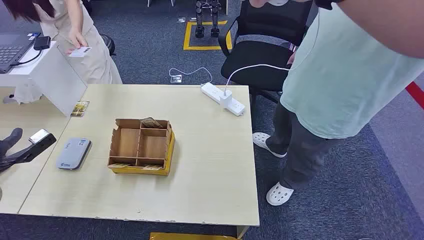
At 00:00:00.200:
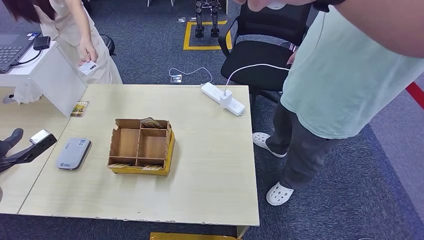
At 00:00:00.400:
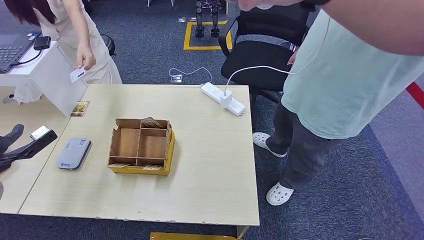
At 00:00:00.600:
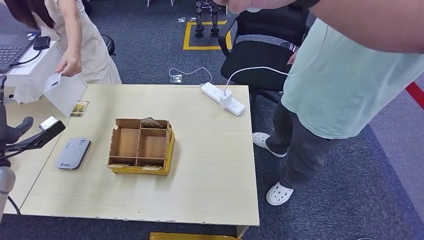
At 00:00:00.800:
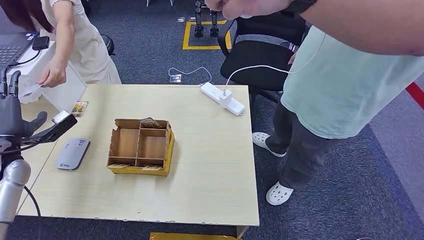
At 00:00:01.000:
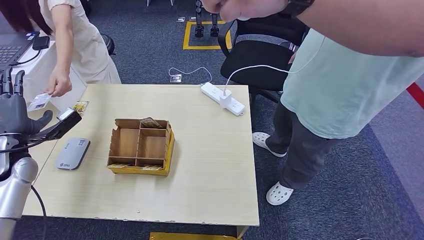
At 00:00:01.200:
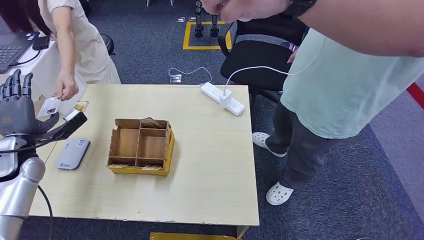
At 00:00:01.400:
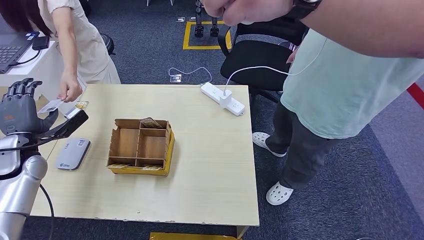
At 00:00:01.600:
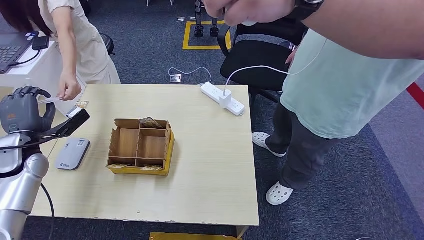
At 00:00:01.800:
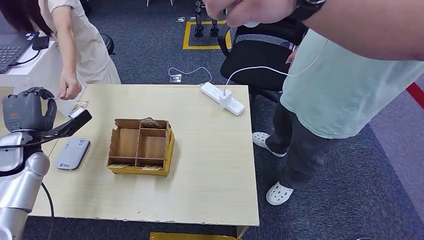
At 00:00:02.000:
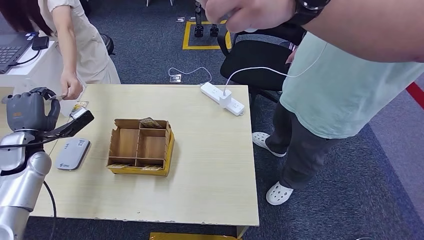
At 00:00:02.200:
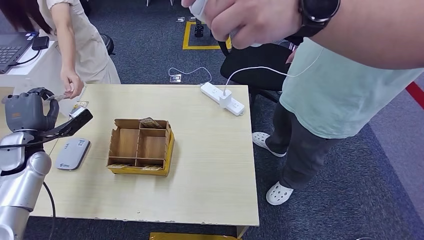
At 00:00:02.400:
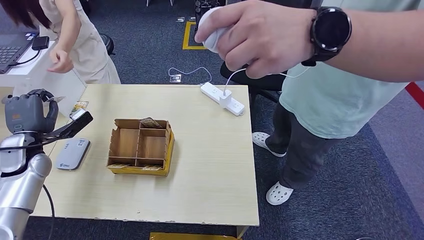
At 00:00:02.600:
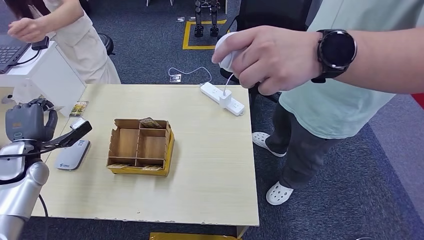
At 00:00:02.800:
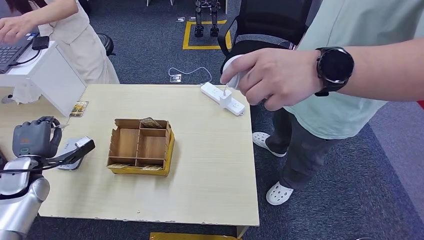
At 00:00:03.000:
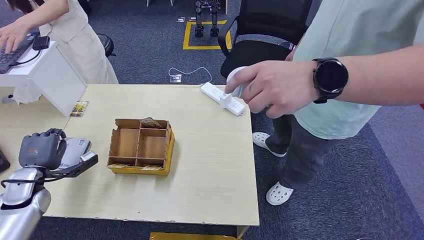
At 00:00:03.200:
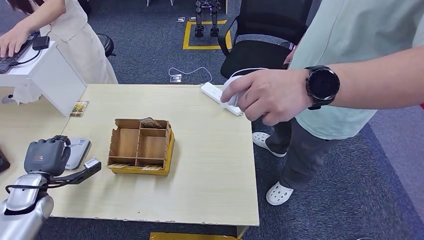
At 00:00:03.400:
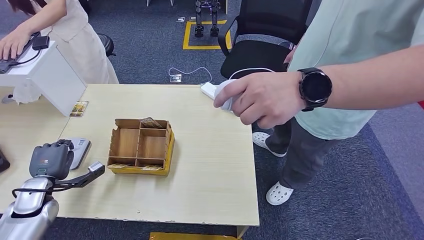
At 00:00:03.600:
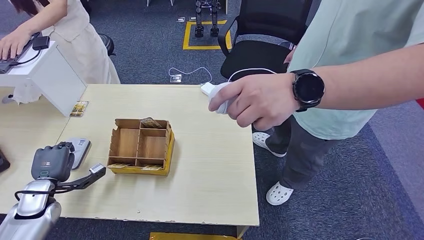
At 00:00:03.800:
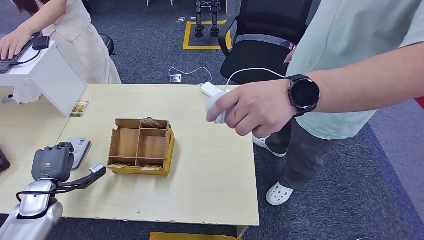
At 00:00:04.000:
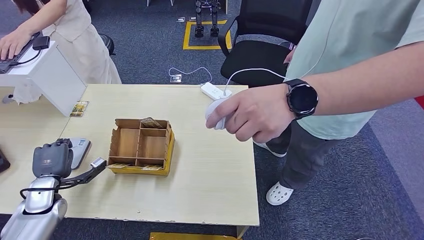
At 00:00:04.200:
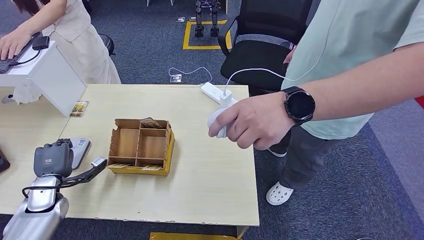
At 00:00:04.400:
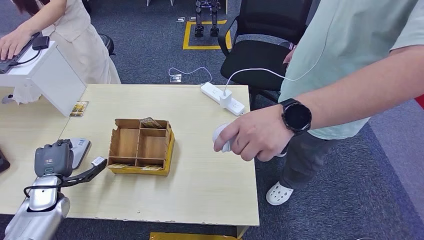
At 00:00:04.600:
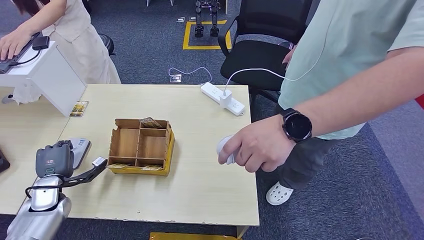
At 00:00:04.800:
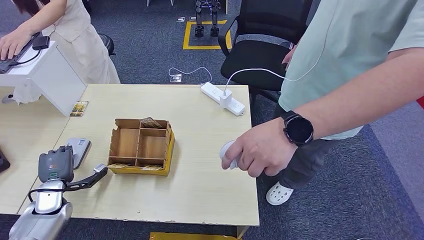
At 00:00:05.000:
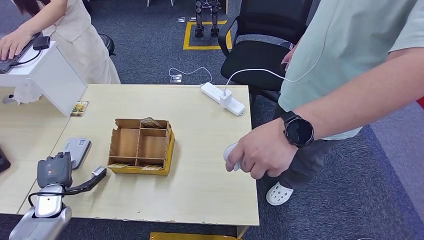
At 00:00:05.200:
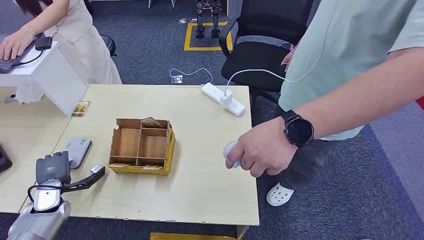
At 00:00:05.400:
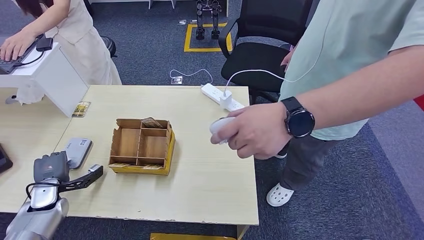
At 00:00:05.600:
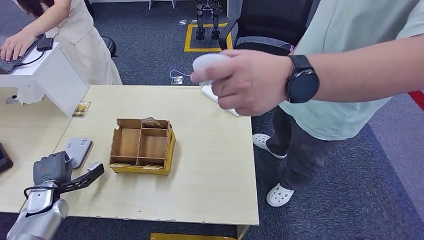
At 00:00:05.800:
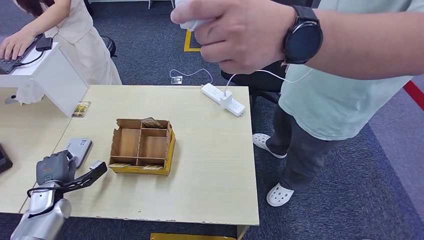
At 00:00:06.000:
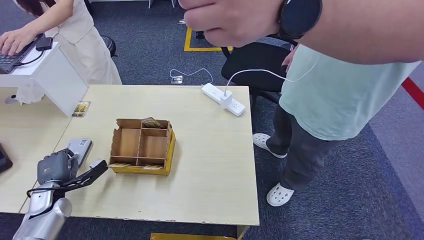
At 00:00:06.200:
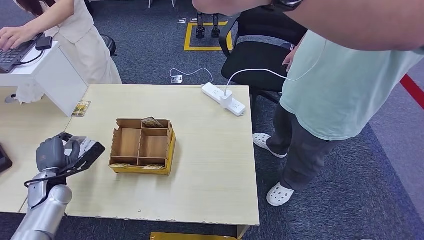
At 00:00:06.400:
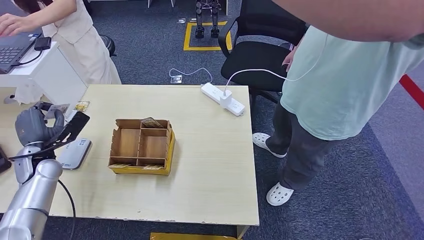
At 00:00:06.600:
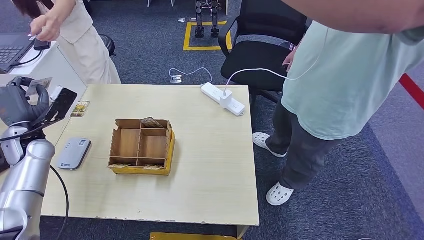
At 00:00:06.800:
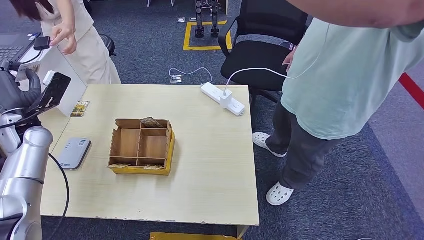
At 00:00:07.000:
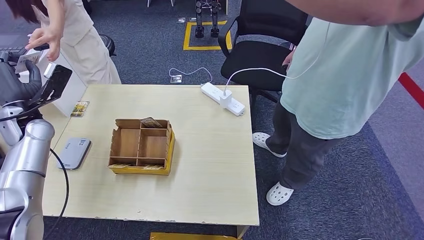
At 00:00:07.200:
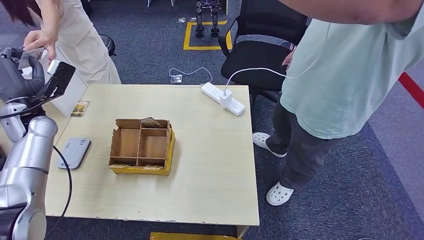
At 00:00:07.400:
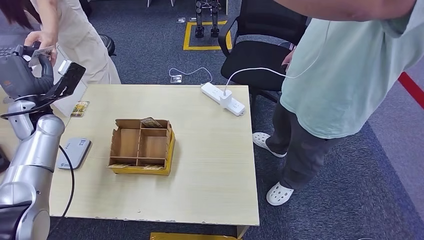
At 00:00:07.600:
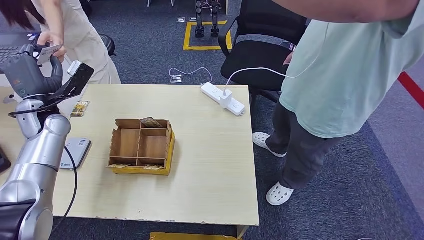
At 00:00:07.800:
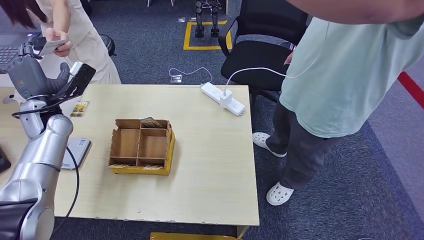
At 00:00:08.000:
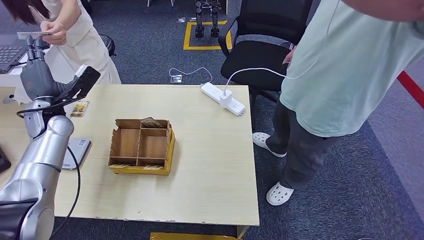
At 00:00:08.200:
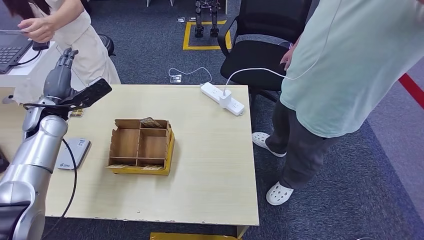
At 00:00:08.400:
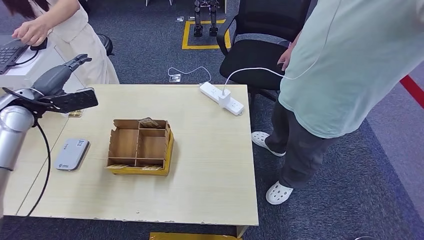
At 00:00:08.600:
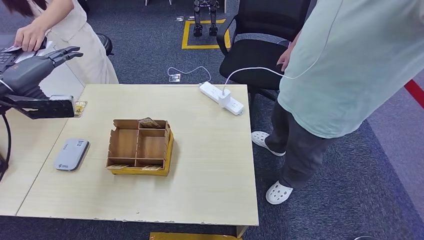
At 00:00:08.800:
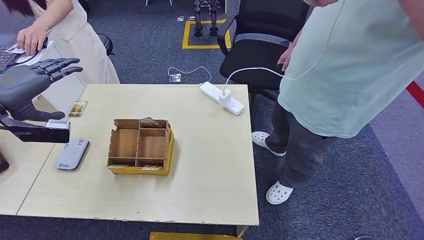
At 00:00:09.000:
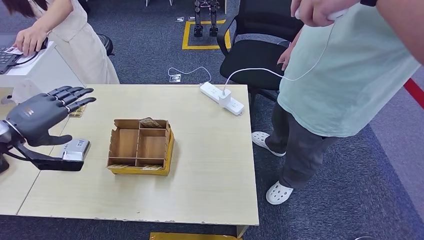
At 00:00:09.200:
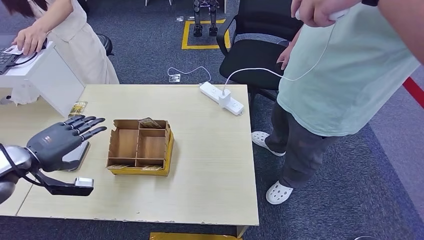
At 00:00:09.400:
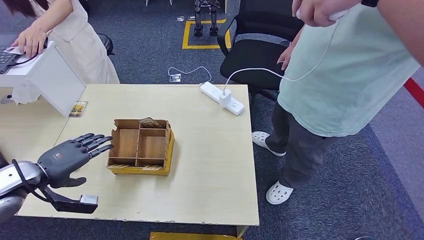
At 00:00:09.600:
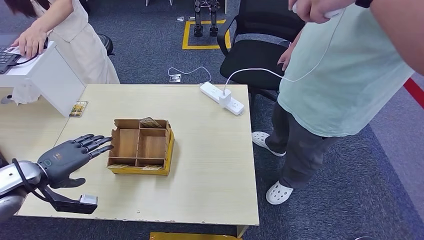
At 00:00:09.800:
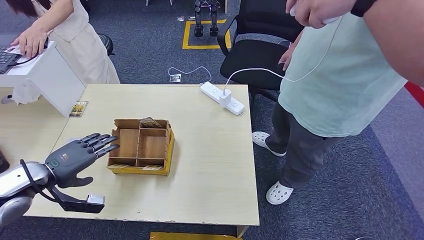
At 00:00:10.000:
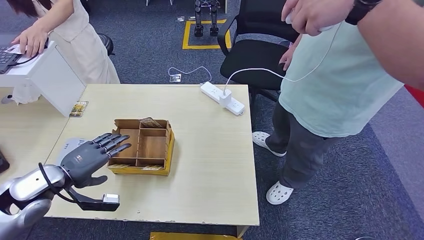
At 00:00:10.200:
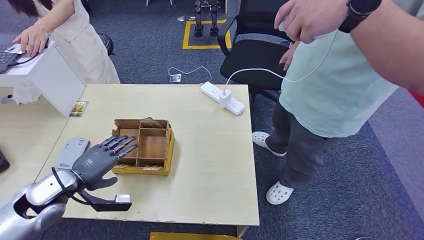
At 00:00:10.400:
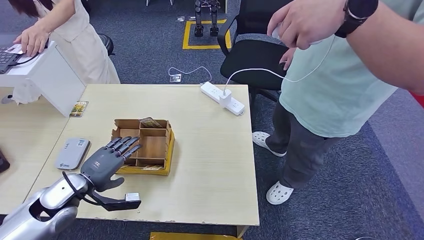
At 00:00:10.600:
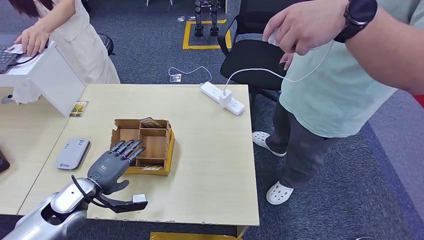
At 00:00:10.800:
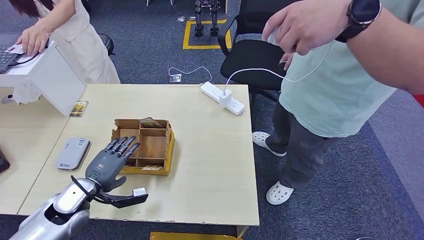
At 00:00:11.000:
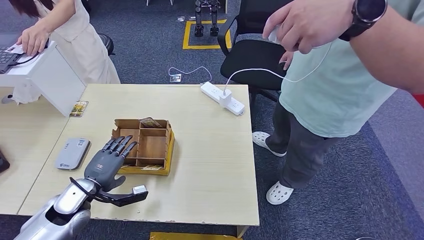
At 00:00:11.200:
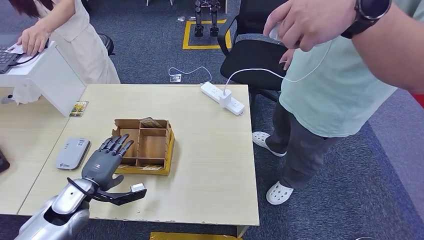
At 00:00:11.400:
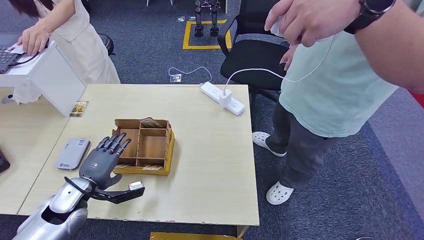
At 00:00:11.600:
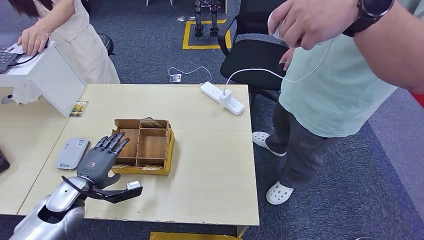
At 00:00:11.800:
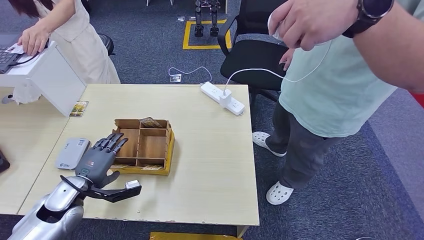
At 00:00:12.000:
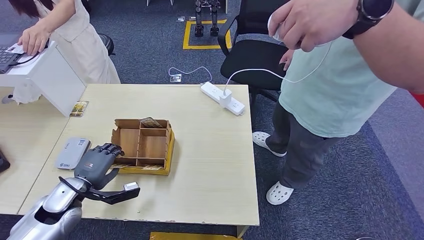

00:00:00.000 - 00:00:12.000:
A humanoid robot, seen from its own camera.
Step, 00:00:00.000 - 00:00:02.200: Take the ID card from the person's hand.
Step, 00:00:02.400 - 00:00:05.600: Place the ID card on the card reader.
Step, 00:00:05.800 - 00:00:07.800: Hand the ID card to the person.
00:00:03.000 - 00:00:04.400: The left hand changes place by roughly 5 cm.
00:00:09.000 - 00:00:10.400: The left hand goes some 20 cm downward and to the right.
00:00:10.400 - 00:00:12.000: There are only small adjustments of the hands.

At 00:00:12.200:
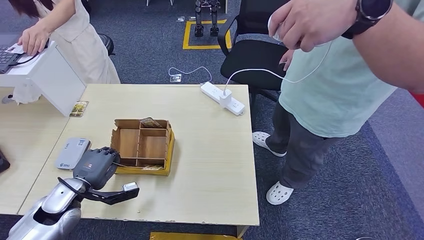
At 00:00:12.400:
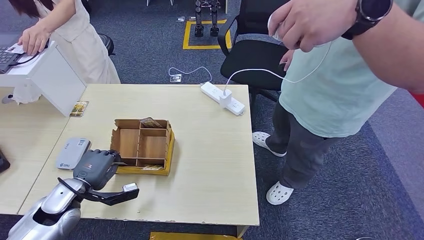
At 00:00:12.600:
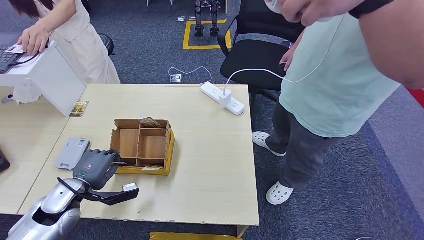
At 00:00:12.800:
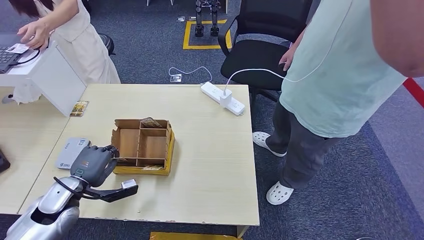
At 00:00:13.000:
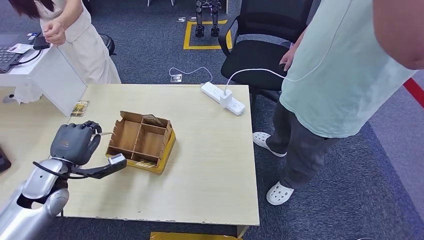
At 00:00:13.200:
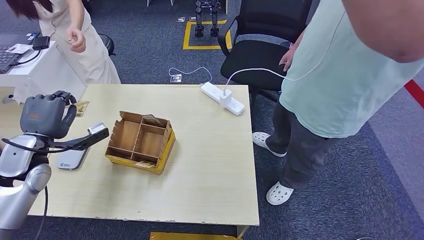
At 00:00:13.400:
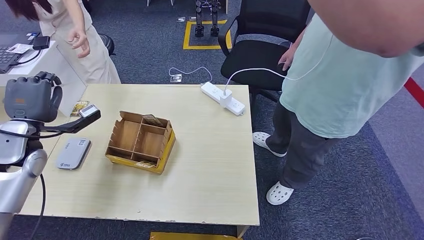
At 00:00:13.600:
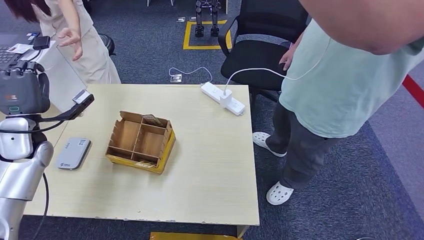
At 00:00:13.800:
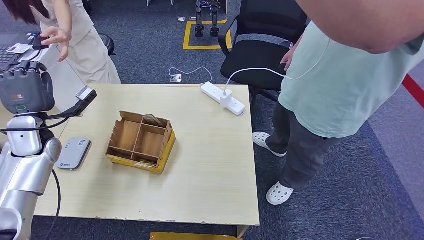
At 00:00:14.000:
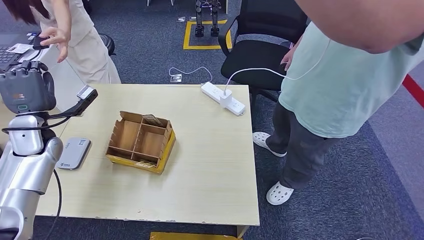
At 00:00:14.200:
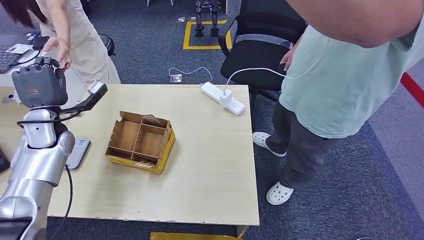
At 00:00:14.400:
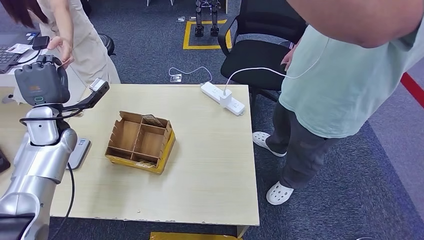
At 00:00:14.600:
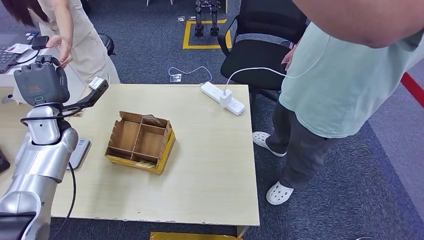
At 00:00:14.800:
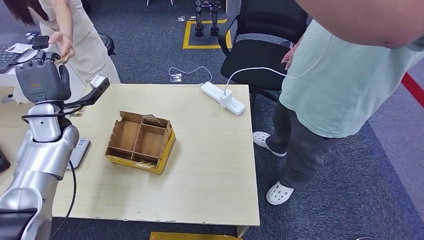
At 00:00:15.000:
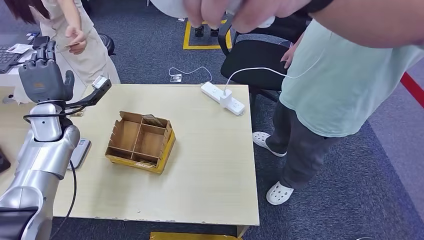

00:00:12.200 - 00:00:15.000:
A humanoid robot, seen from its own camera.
Step, 00:00:13.000 - 00:00:14.800: Hand the room key to the person.
00:00:13.600 - 00:00:15.000: The left hand is displaced forward by roughly 5 cm.
